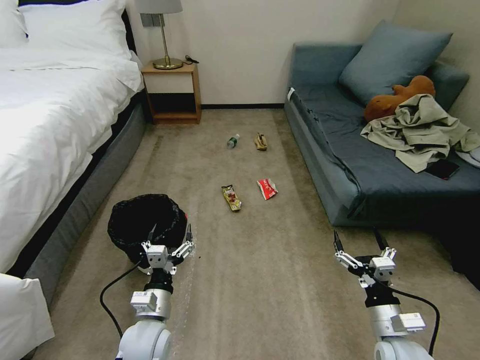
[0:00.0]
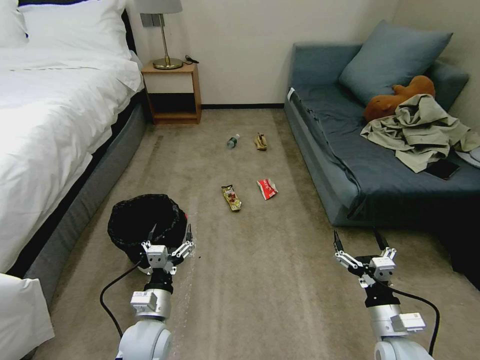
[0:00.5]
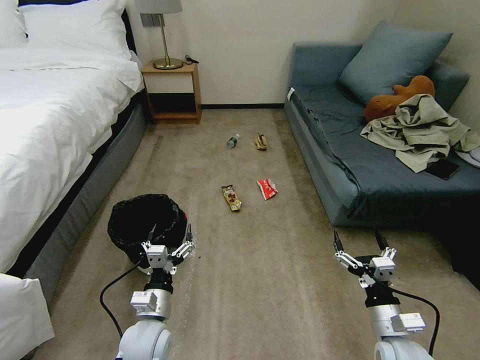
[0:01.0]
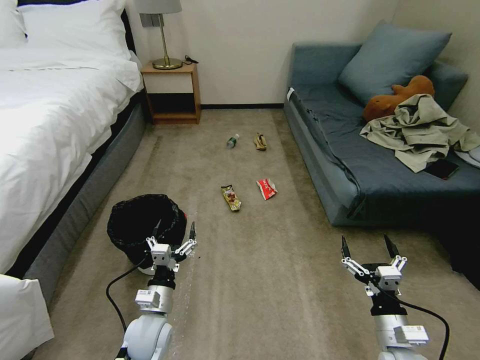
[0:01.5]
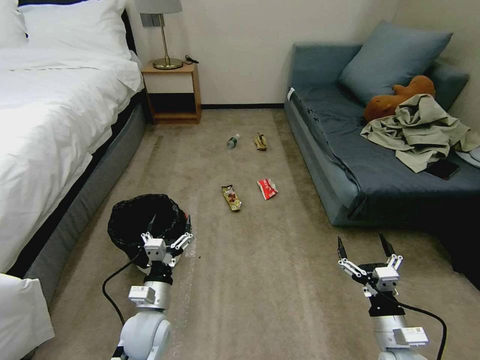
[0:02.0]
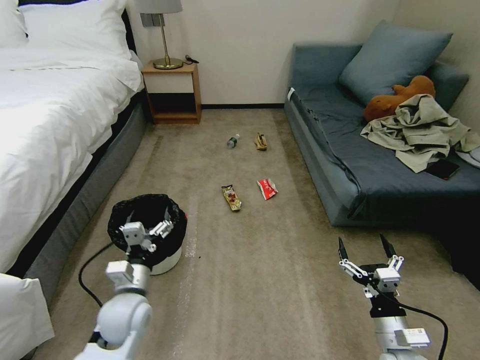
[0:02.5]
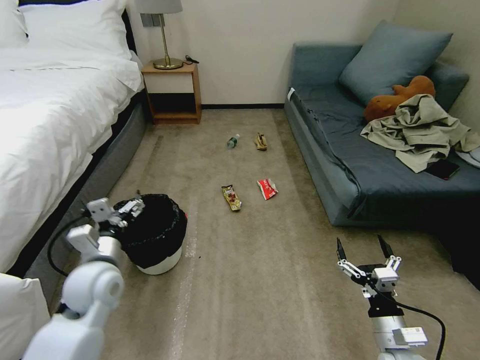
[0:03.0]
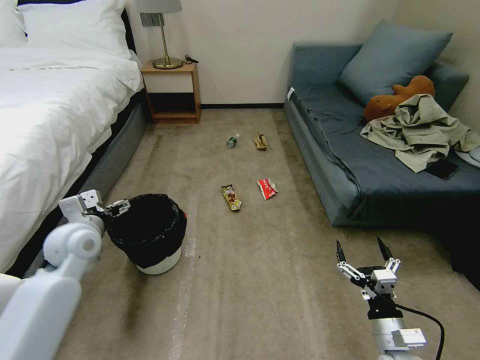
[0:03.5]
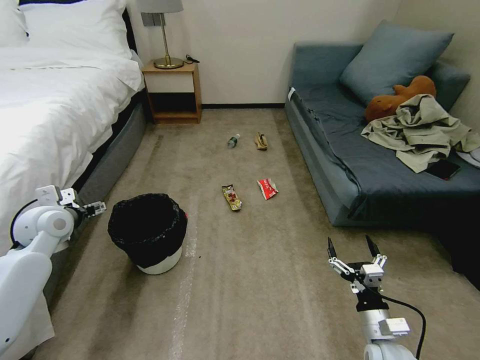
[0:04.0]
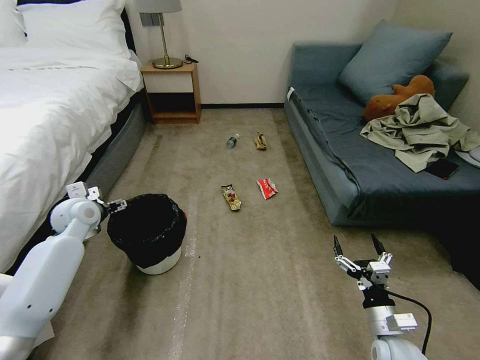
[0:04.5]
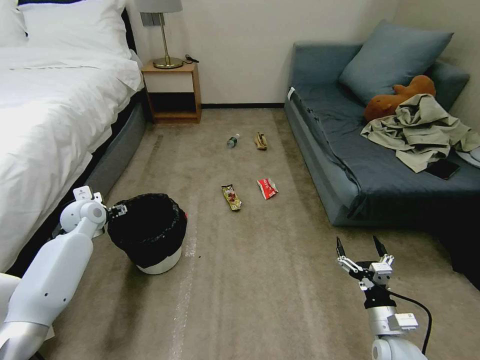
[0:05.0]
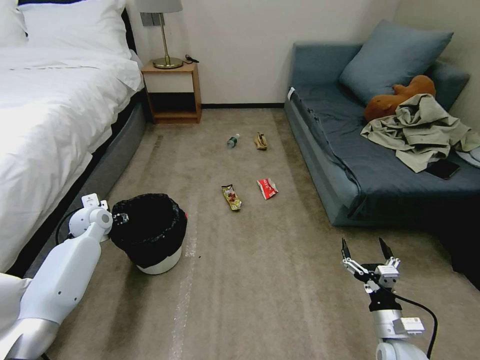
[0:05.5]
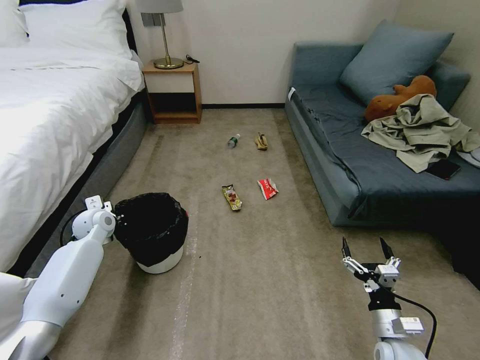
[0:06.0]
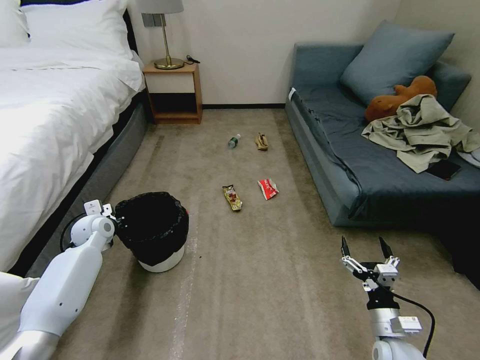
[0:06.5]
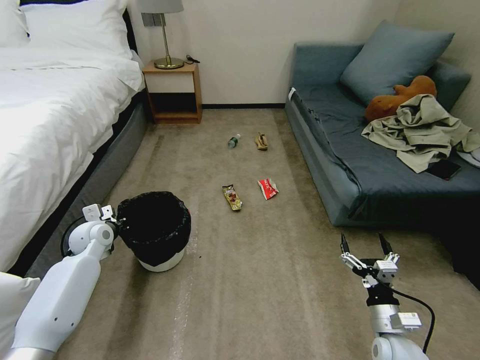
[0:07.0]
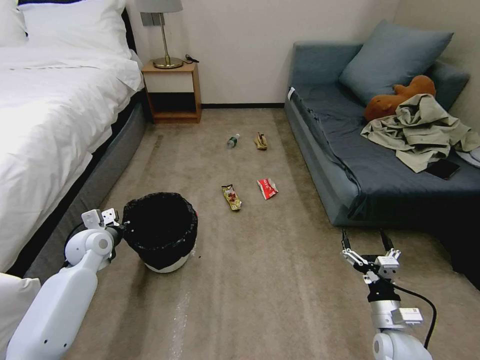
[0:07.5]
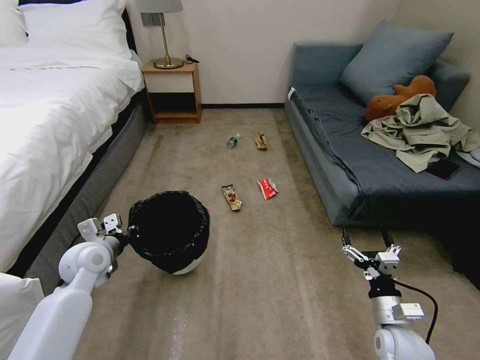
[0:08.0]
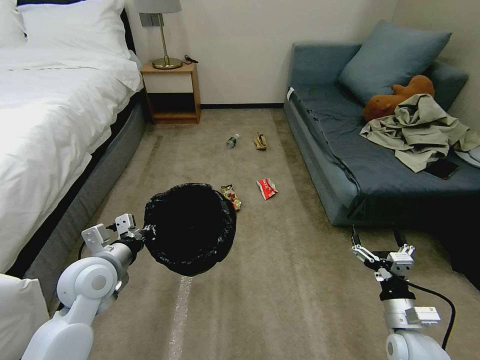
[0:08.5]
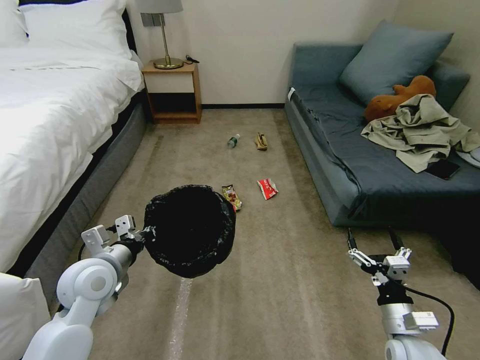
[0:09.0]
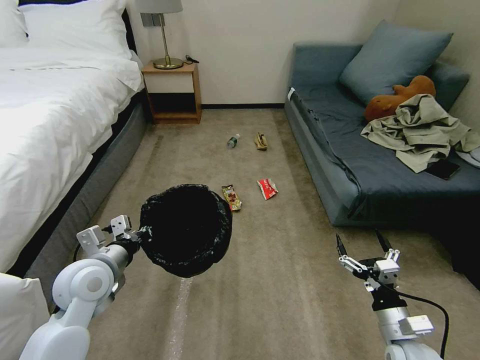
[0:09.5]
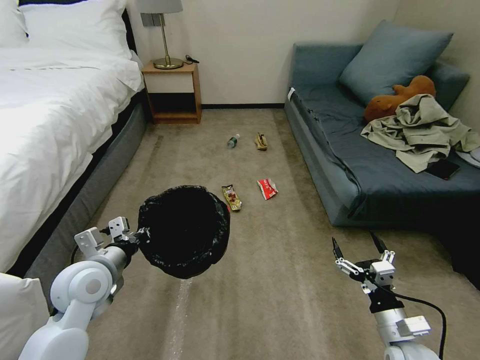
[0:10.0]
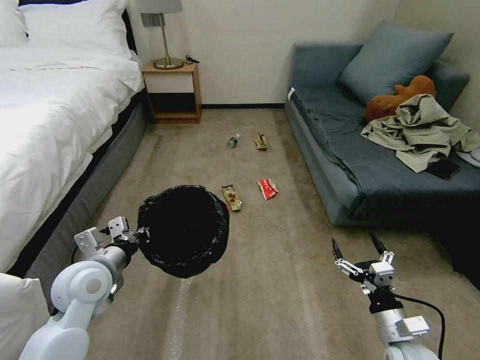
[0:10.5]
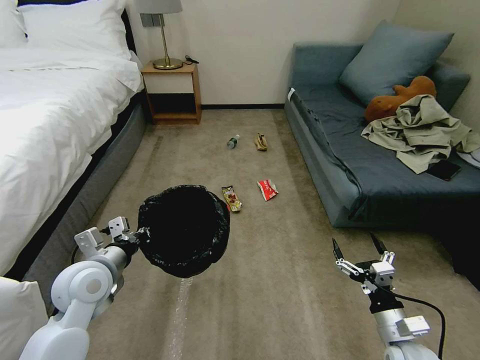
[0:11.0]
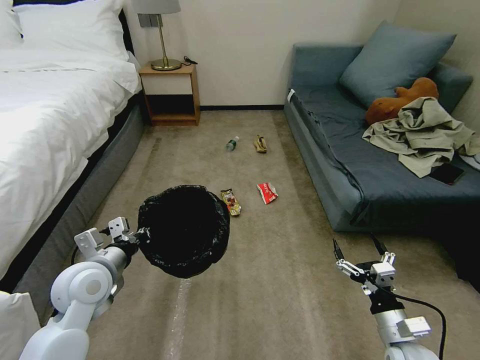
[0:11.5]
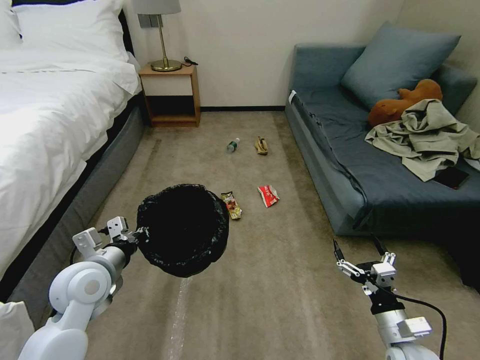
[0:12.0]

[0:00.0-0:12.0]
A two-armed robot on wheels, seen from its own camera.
Task of the whole recording: Pick up the trash bin, then pick up the garbage on the floor and place it into the trash bin.
2.0 to 4.0 s: The left gripper travels to the left, upward and forward by roughly 35 cm.
4.0 to 6.0 s: The left gripper heads downward and forward, covering roughly 15 cm, and closes up.
6.0 to 8.0 s: The left gripper travels backward by roughly 10 cm.
8.0 to 10.0 s: The left gripper shifts some 10 cm backward and to the right.
10.0 to 12.0 s: Both grippers stay put.

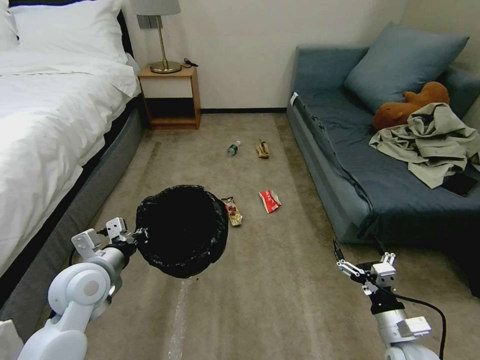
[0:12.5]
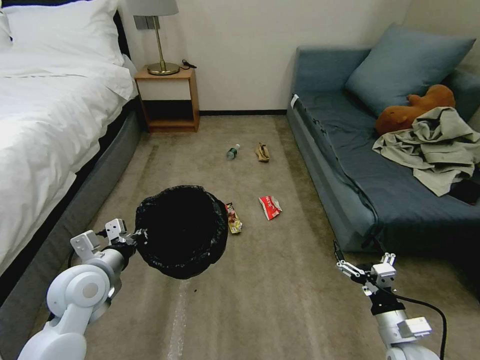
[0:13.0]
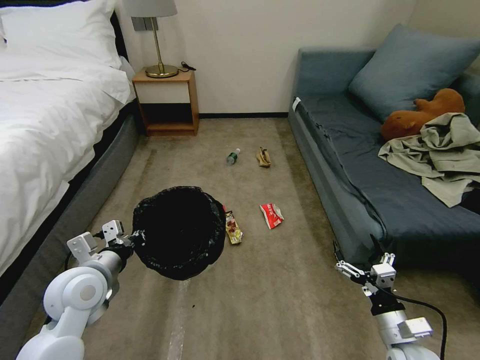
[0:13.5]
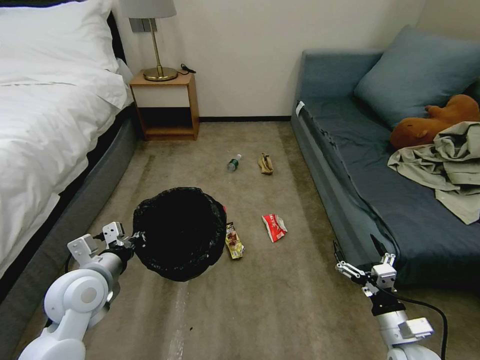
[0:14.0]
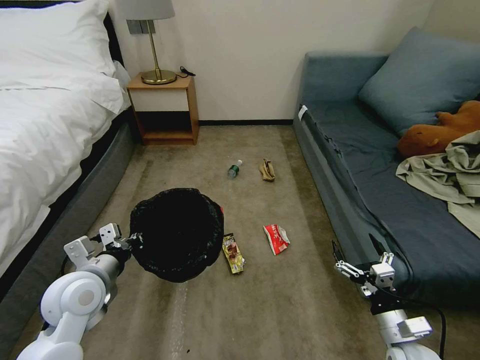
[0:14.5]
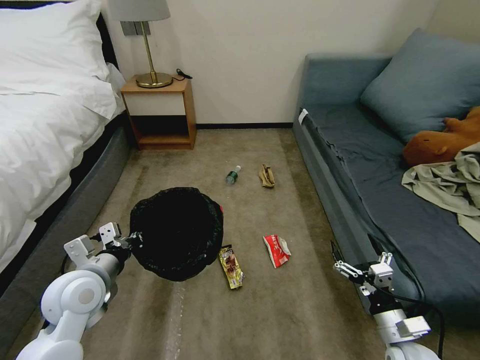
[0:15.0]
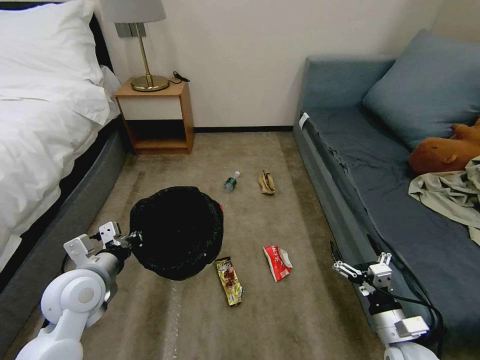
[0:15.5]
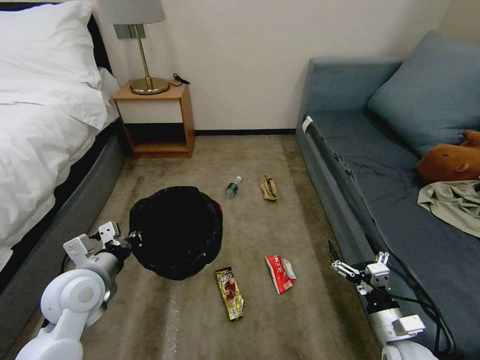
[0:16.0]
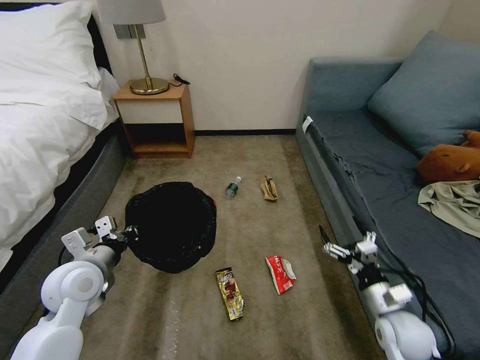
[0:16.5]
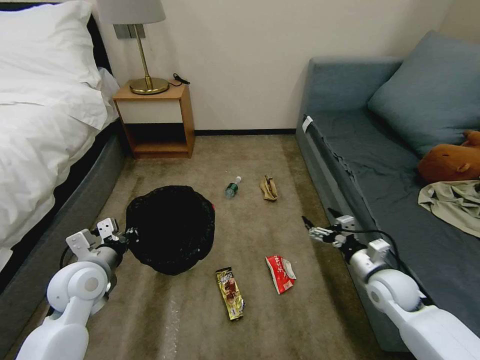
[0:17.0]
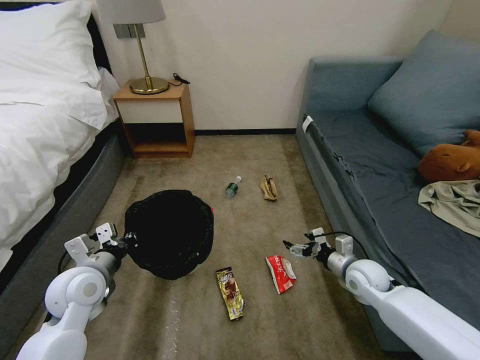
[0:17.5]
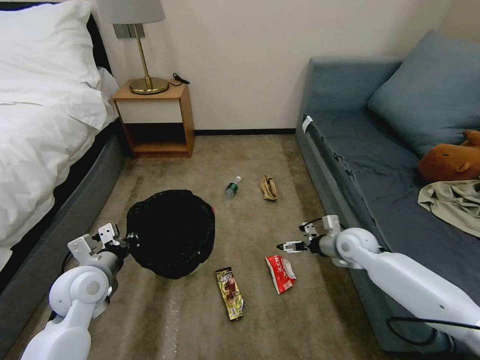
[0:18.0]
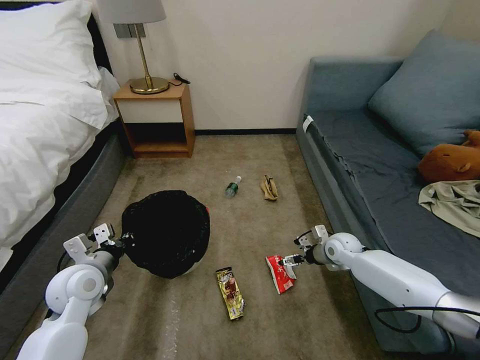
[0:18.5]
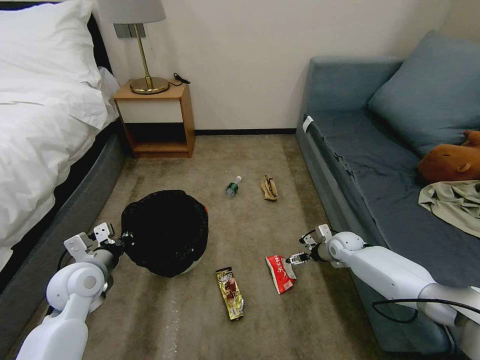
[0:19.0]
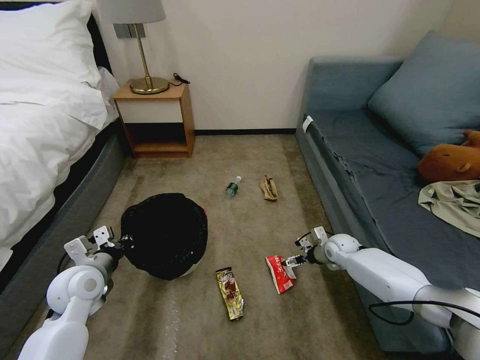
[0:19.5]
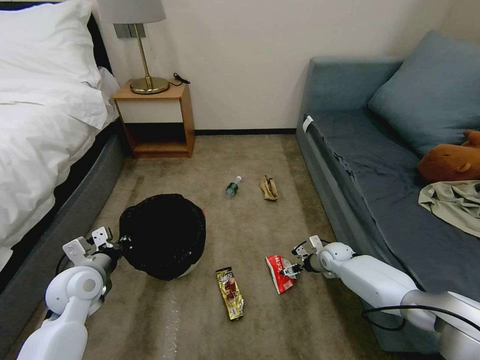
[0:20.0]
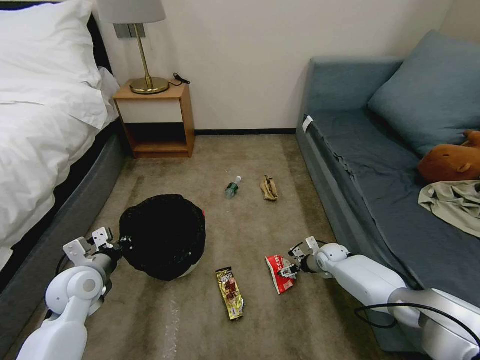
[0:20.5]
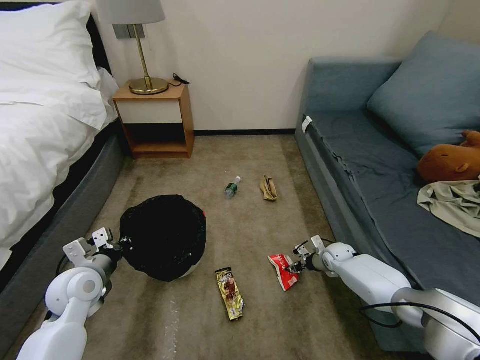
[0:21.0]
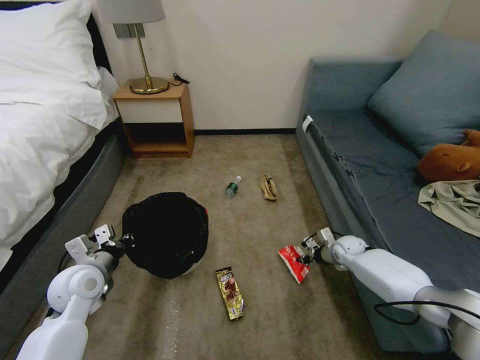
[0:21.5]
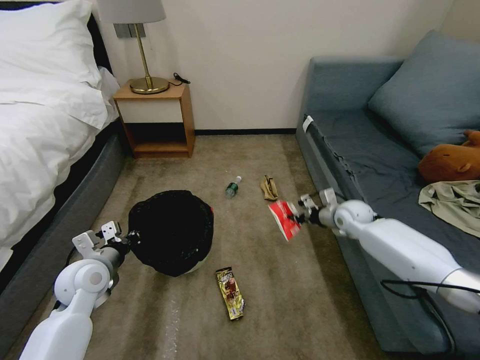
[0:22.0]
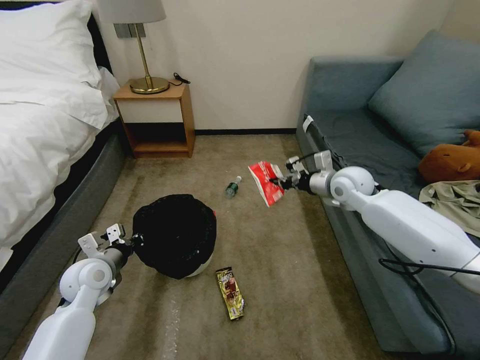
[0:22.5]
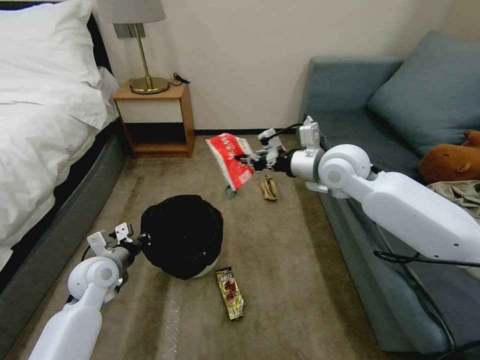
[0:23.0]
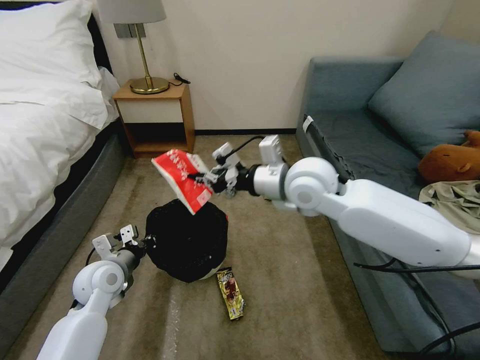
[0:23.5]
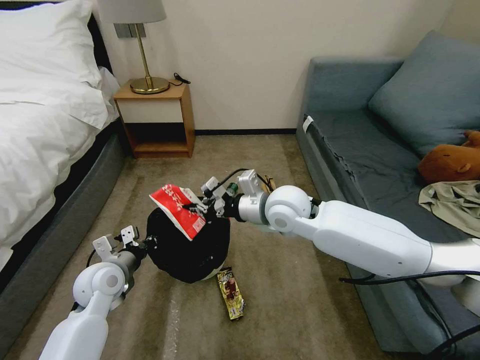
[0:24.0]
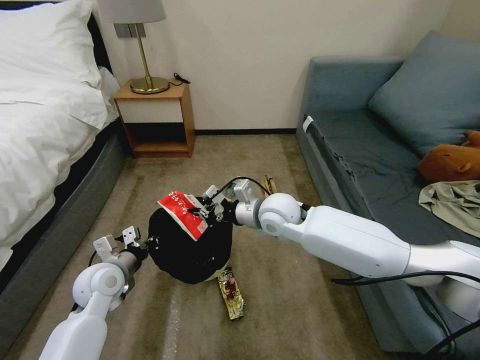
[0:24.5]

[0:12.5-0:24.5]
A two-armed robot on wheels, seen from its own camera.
Task of the whole recording: Pick up the trash bin, then pick up the garbage on the floor and place it into the trash bin.
14.5 to 16.5 s: The right gripper is displaced forward by approximately 5 cm.
16.5 to 18.5 s: The right gripper travels forward by some 25 cm.
18.5 to 20.5 s: The right gripper shifts roughly 10 cm downward.
20.5 to 22.5 s: The right gripper moves upward, approximately 30 cm, and closes up.
22.5 to 24.5 s: The right gripper heads to the left, covering roughly 20 cm.

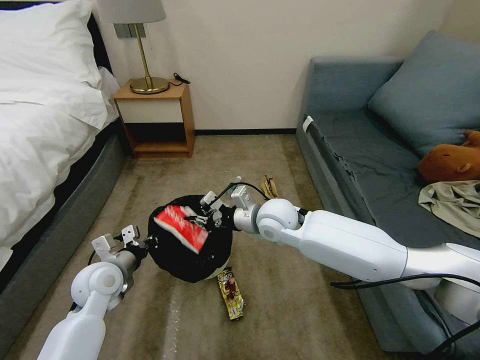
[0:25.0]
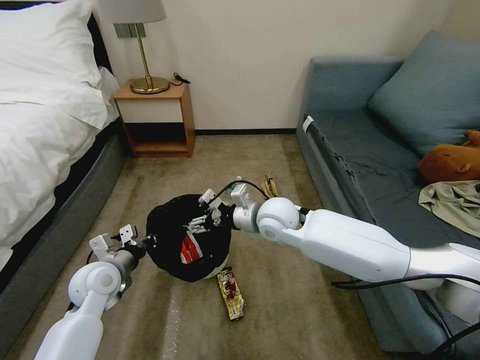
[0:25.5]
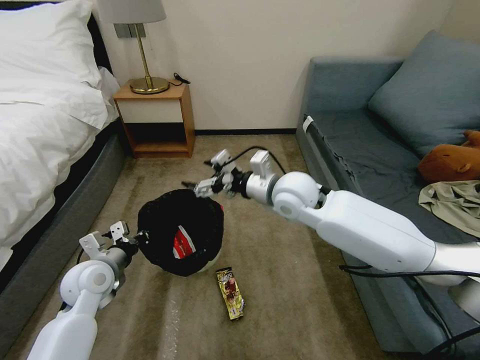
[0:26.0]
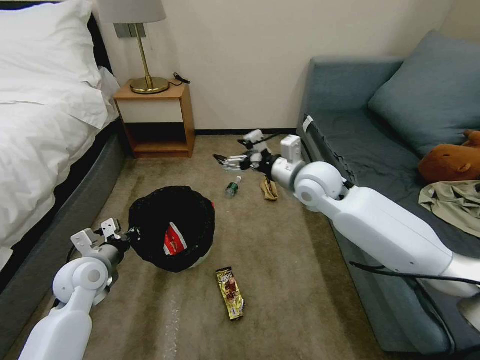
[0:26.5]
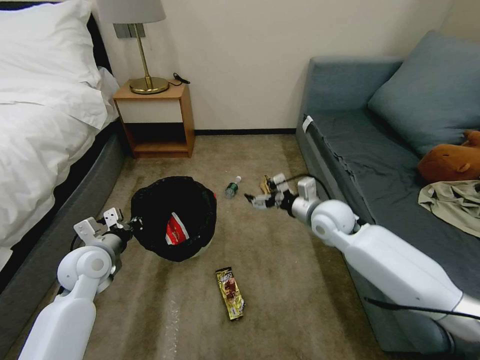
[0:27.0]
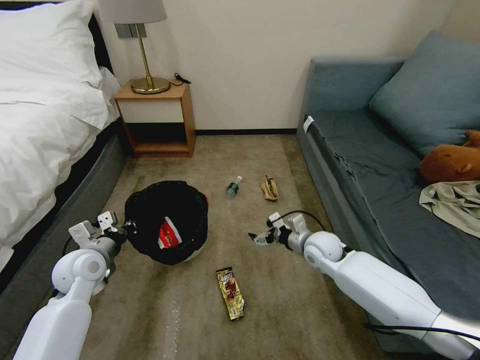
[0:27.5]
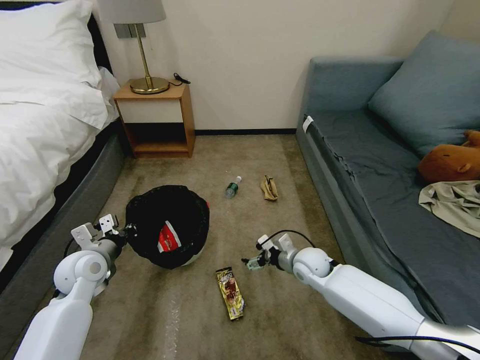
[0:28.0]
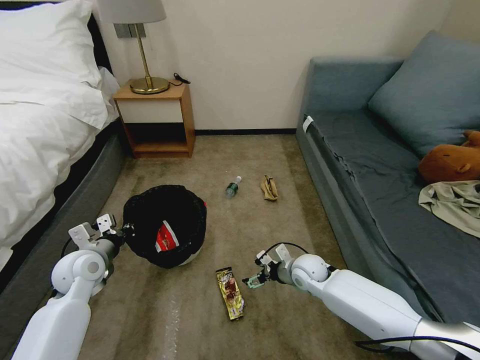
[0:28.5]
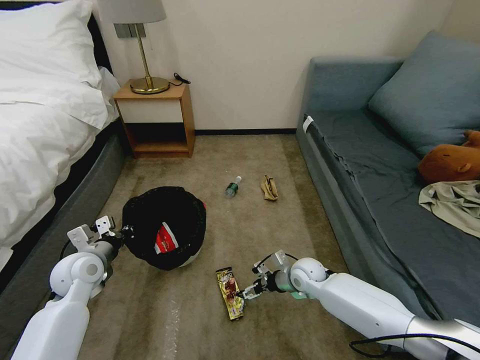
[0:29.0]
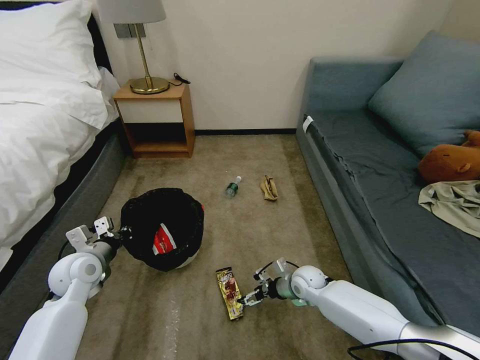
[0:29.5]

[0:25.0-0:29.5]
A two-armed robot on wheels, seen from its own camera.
Task of the whole recording: Pick up the trash bin, then pick up the garbage on the floor and place it into the trash bin.
25.0 to 27.0 s: The right gripper moves to the right, approximately 15 cm, and opens up.
27.0 to 29.5 s: The right gripper travels downward by some 25 cm.
